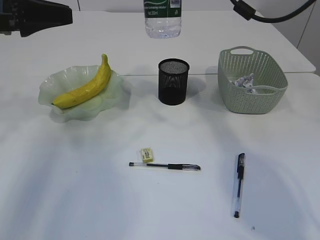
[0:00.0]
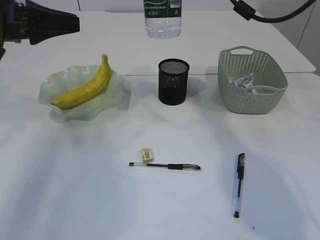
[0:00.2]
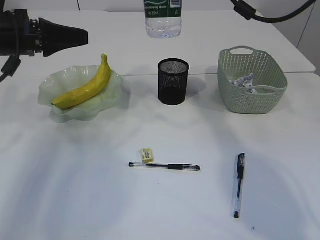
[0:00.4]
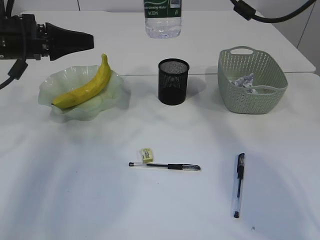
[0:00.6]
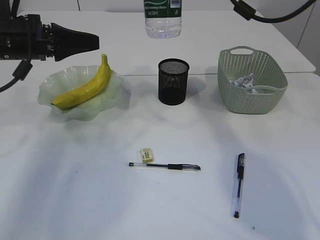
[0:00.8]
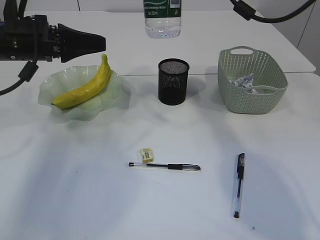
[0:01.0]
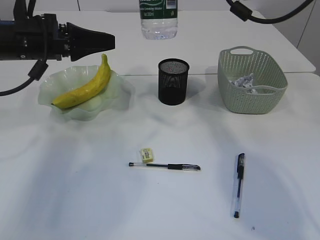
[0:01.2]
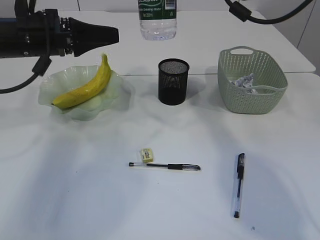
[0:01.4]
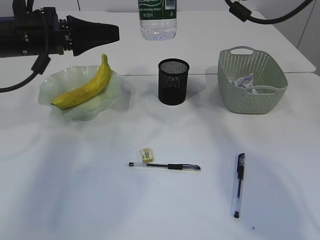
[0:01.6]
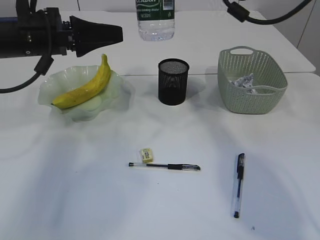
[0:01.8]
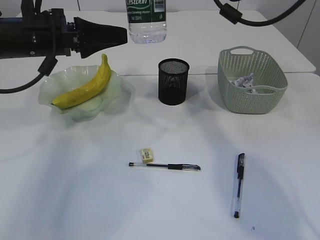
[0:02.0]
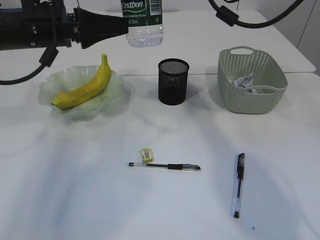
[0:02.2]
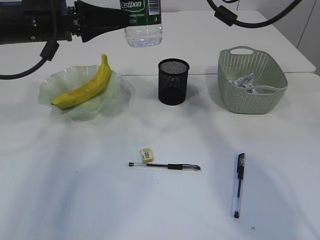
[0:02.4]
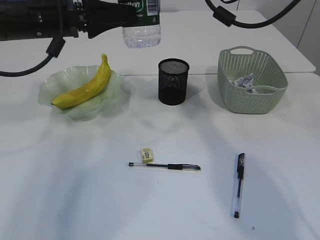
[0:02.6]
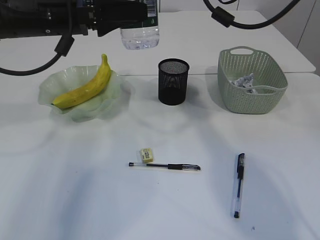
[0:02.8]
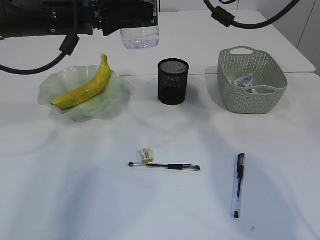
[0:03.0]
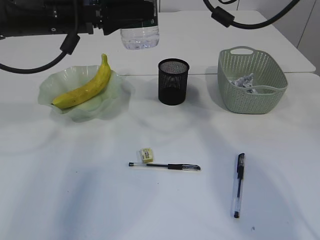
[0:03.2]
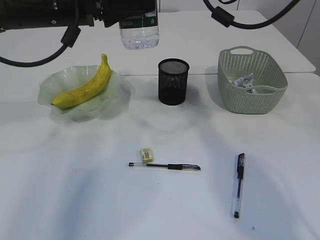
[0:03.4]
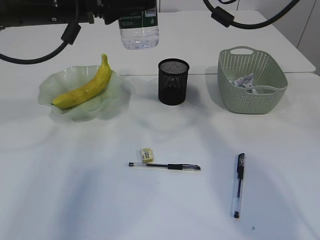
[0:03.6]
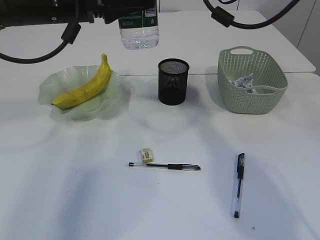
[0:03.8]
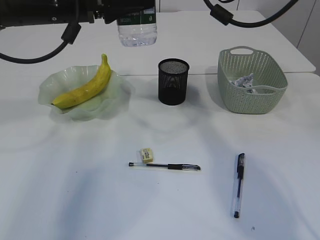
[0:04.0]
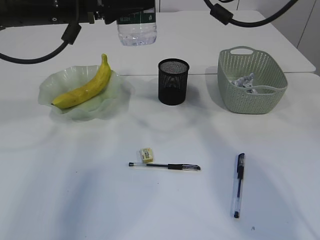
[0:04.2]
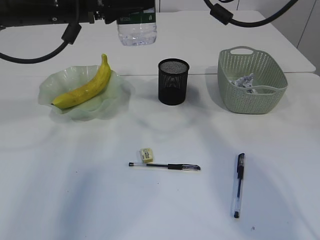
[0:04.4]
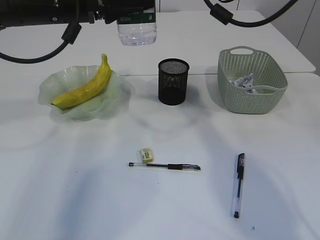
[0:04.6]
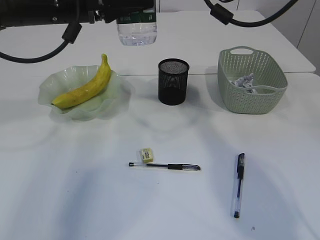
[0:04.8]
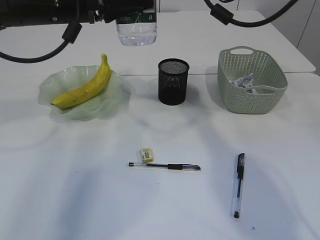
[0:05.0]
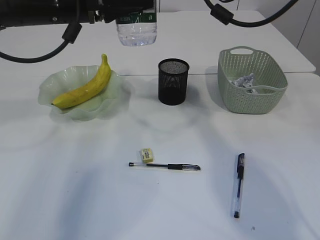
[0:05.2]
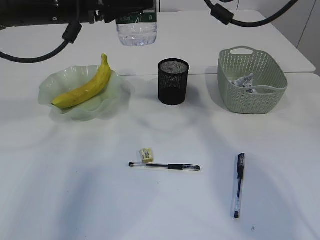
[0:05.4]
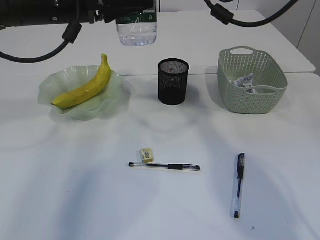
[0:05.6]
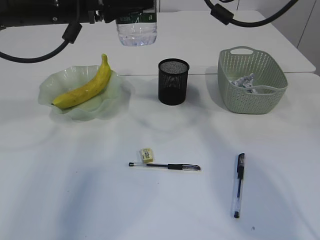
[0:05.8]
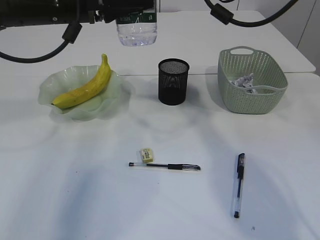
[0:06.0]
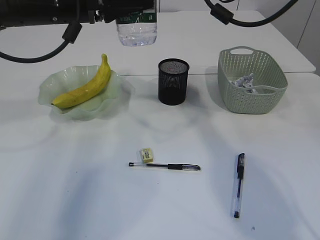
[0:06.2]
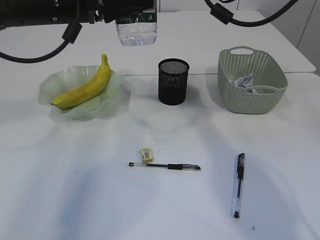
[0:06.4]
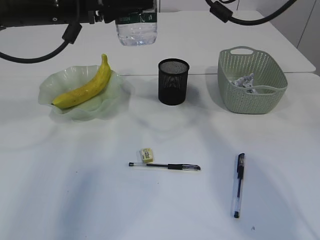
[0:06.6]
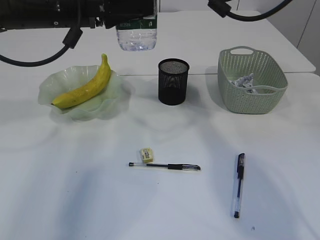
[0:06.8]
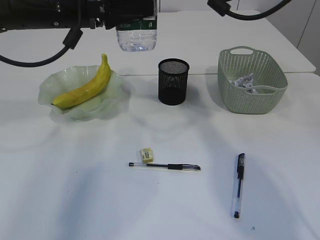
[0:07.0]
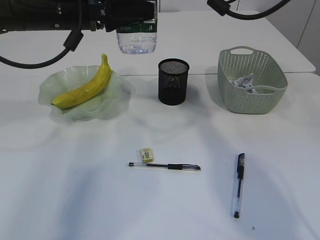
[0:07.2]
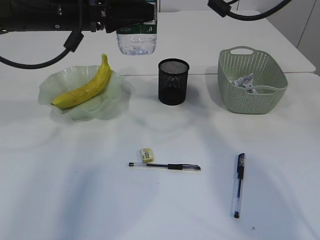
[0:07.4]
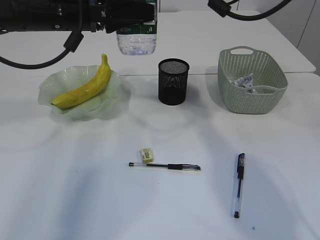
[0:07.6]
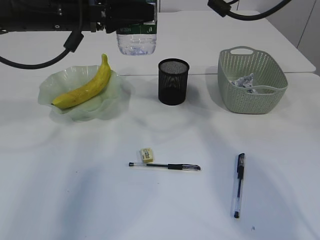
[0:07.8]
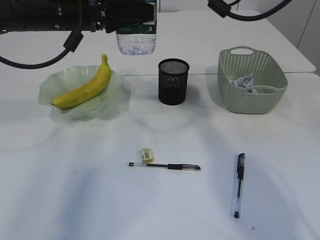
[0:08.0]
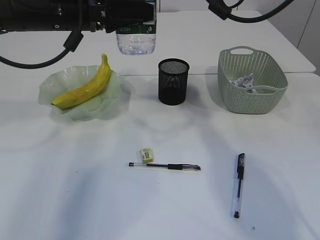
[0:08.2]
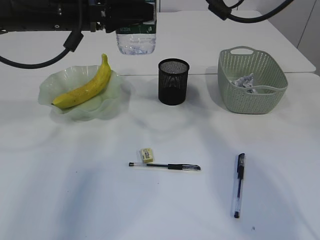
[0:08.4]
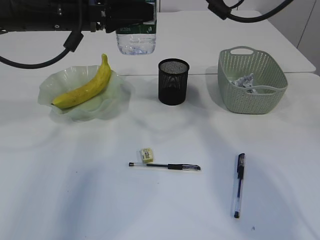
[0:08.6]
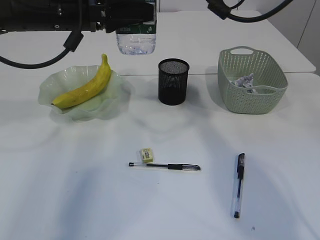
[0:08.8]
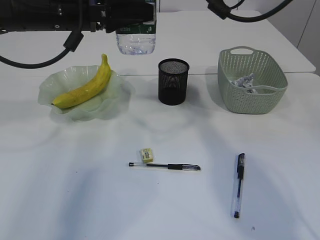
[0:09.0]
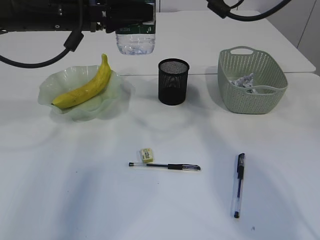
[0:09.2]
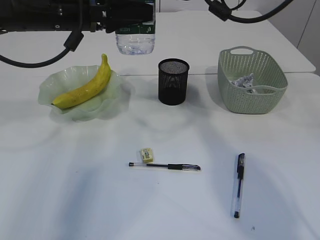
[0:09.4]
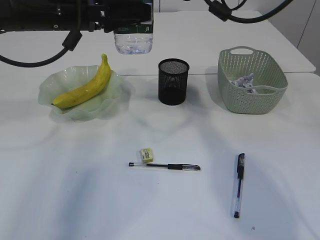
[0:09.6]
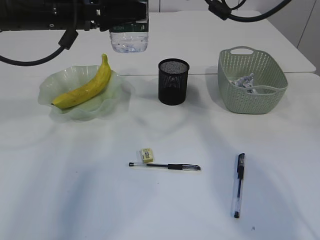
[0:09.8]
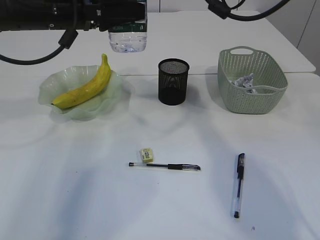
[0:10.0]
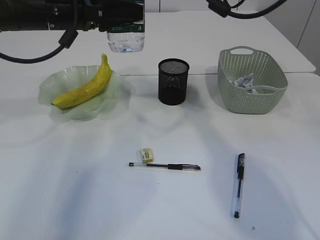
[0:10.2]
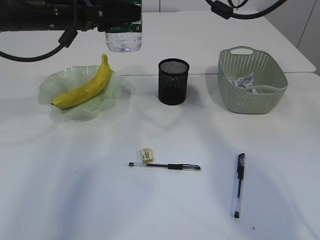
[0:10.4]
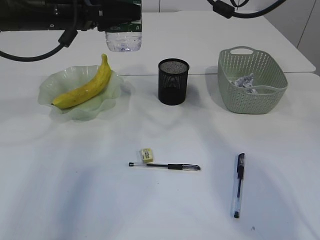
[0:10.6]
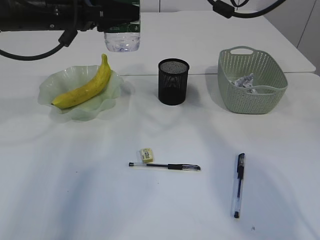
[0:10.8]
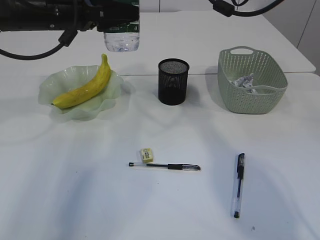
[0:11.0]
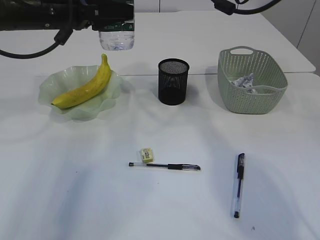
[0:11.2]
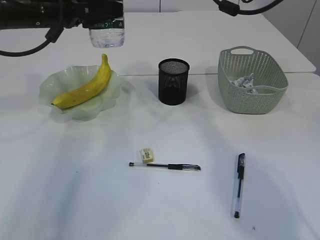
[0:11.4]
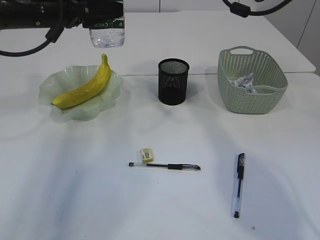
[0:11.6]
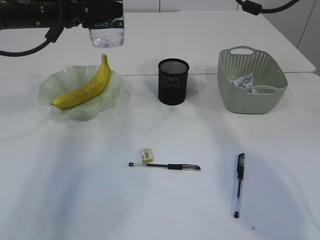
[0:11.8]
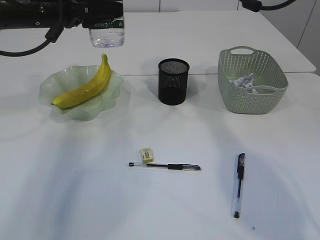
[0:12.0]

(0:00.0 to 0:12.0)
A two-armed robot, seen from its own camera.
Step, 0:00.0 - 0:10.0: transfer the bottle to the left arm.
0:00.0 - 0:01.6: The left gripper is displaced to the right by approximately 5 cm, and opens.
0:01.6 - 0:03.0: The left gripper heads to the right, covering roughly 5 cm.
0:03.0 - 0:04.4: There are only small adjustments of the grippers.
0:04.4 - 0:06.0: The two grippers keep their place.
0:06.0 - 0:07.6: The right gripper opens up.
0:07.6 - 0:09.0: The two grippers keep their place.
0:09.0 - 0:10.4: The grippers make only small movements.
0:10.4 - 0:12.0: The right gripper heads to the right, covering some 5 cm.

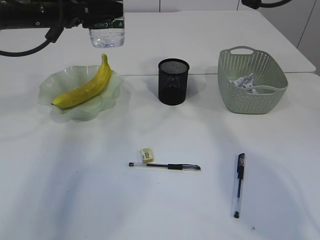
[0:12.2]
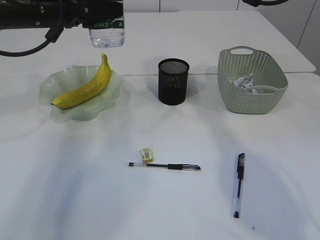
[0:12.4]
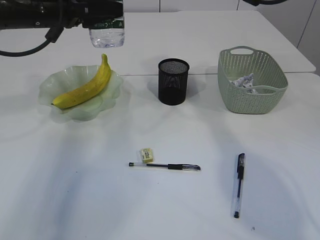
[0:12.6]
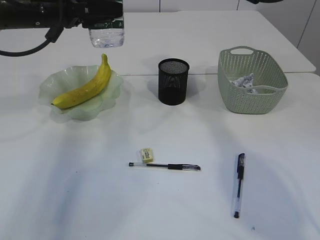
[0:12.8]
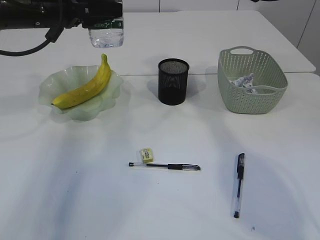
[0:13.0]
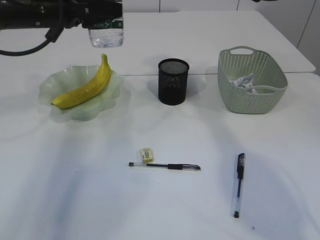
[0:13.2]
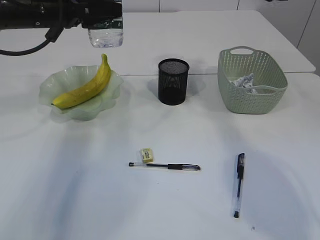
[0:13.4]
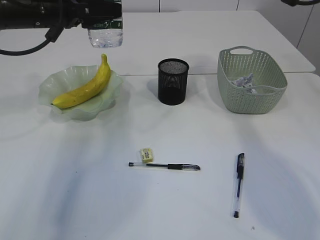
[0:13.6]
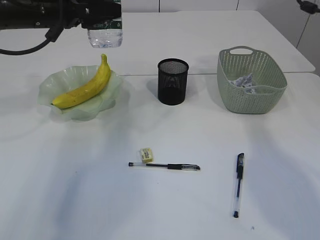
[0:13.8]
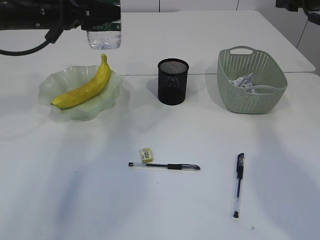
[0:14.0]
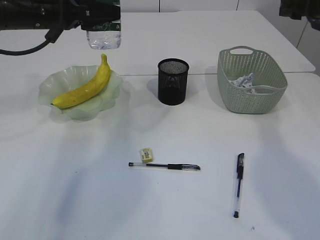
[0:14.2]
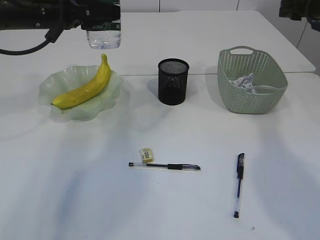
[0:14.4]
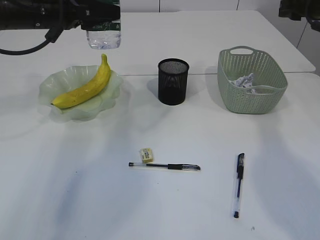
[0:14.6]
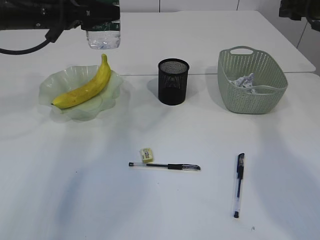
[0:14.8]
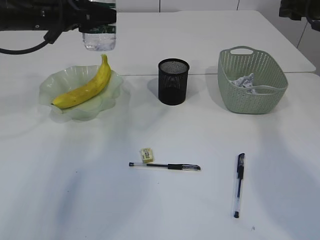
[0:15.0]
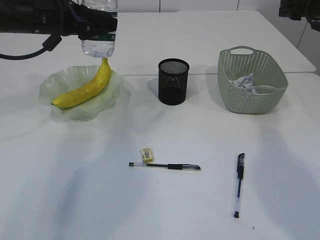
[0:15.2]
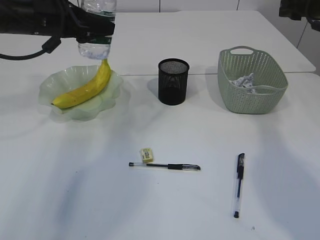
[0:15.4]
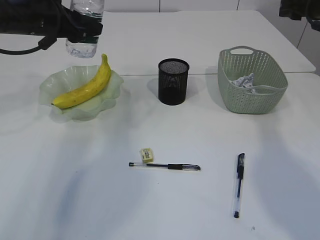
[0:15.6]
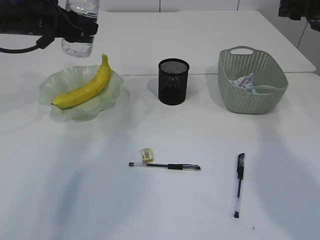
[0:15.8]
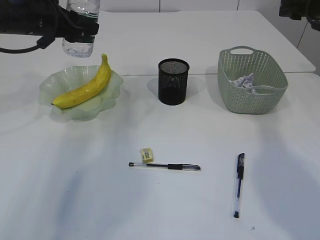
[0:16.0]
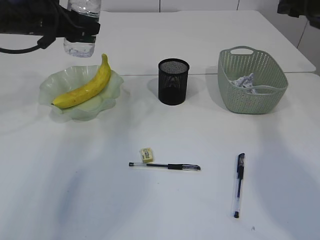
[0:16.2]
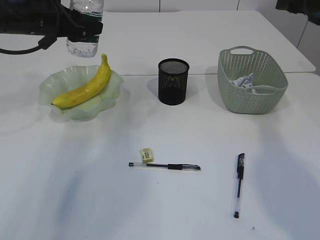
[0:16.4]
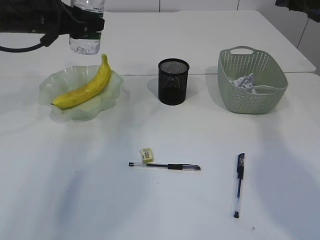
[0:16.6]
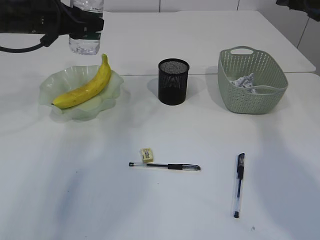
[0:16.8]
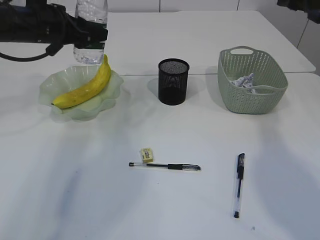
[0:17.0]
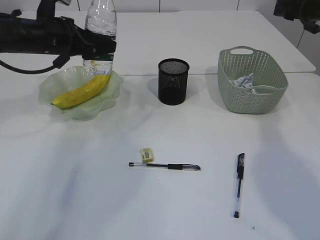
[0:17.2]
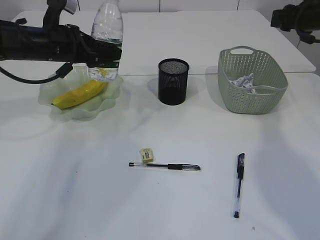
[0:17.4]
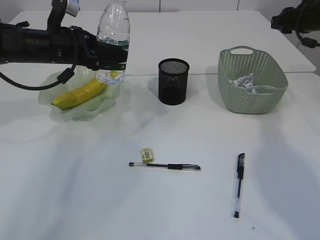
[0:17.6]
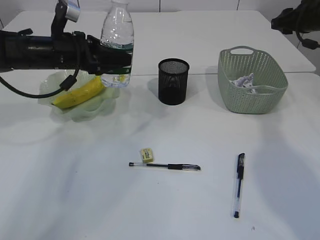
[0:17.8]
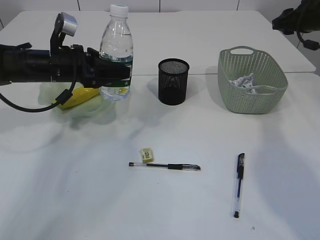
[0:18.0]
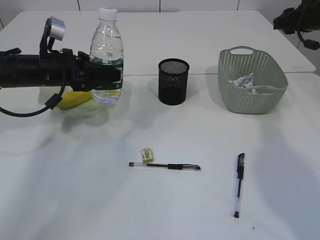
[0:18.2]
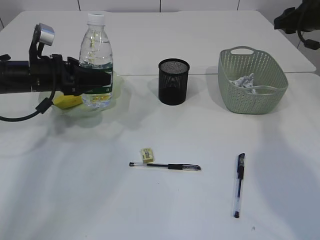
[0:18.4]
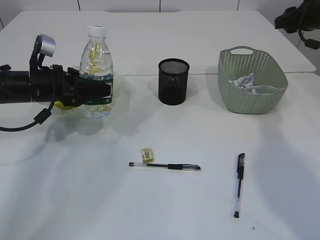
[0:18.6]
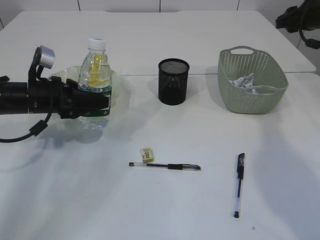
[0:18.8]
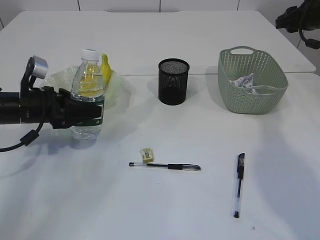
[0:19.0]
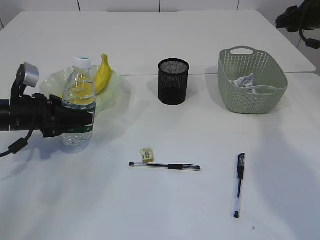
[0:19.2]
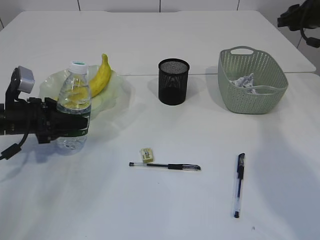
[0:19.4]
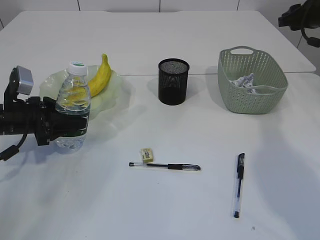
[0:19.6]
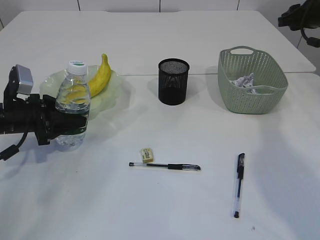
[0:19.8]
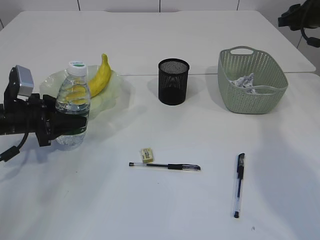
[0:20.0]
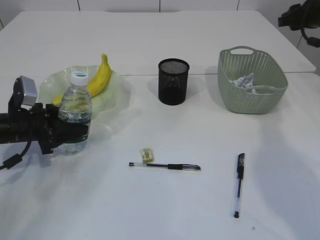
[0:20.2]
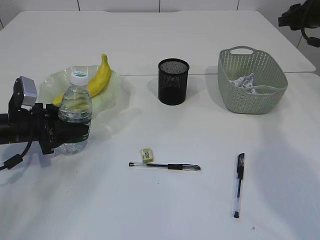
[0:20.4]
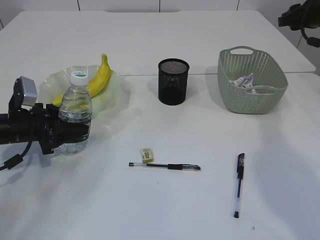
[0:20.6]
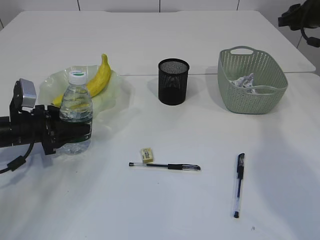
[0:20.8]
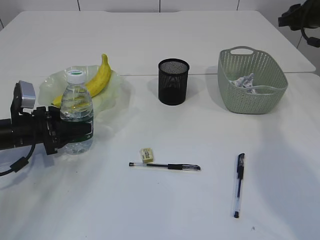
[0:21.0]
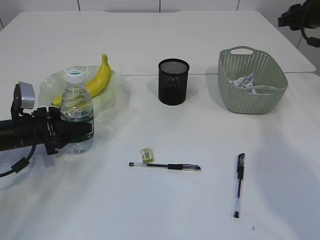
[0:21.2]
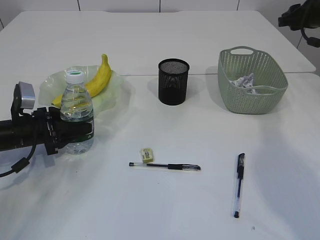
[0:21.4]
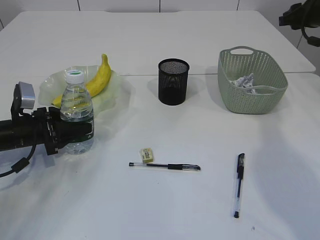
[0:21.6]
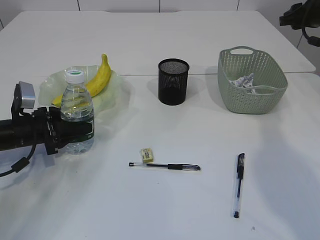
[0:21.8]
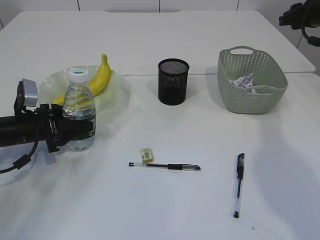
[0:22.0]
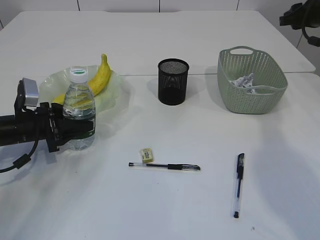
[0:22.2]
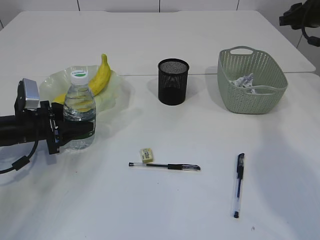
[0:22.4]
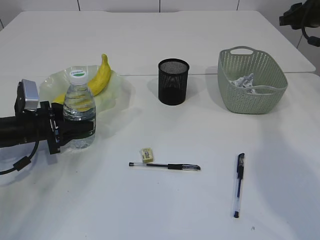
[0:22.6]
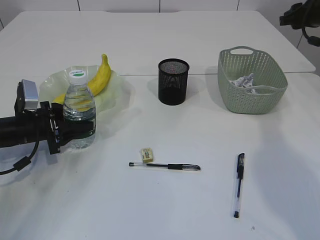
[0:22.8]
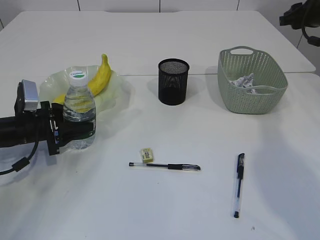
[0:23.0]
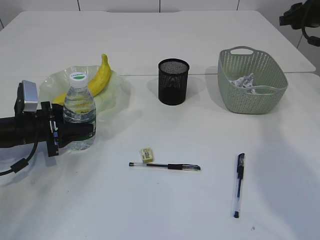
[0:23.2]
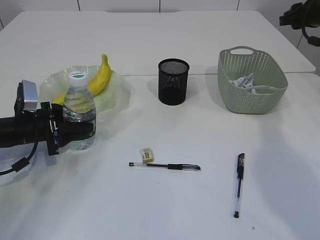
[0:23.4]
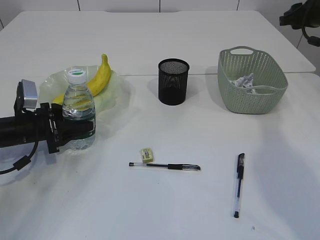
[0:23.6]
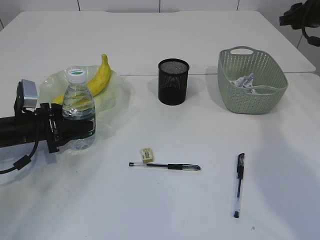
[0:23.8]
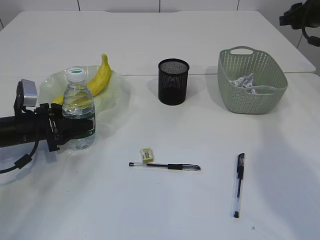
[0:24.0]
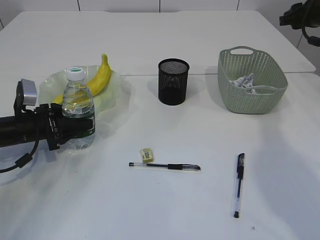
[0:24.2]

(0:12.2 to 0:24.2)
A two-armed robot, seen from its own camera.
0:12.2 - 0:13.8: The right gripper goes some 15 cm to the right, and closes its fingers.
0:13.8 - 0:15.2: The right gripper changes place by about 5 cm.
0:15.2 - 0:16.6: There are only small adjustments of the grippers.
0:16.6 - 0:18.2: The left gripper moves downward, roughly 10 cm.
0:18.2 - 0:19.8: The left gripper heads downward, to the left and backward, covering some 10 cm.
0:19.8 - 0:24.2: The grippers stay close to where they were, moving slightly.
